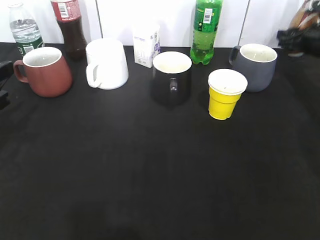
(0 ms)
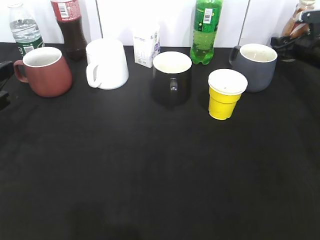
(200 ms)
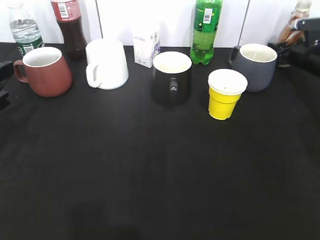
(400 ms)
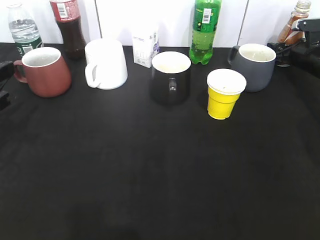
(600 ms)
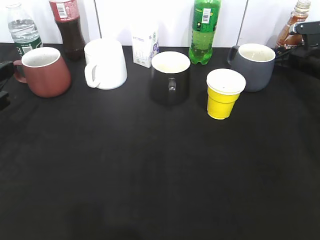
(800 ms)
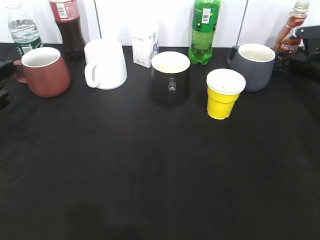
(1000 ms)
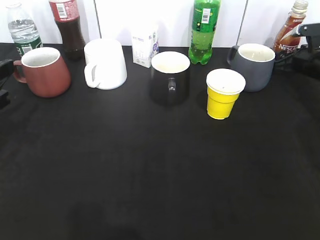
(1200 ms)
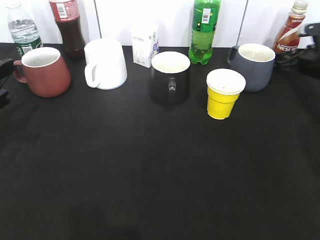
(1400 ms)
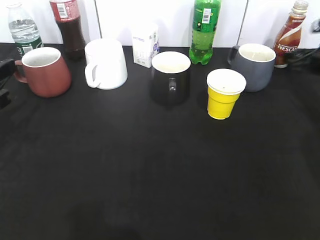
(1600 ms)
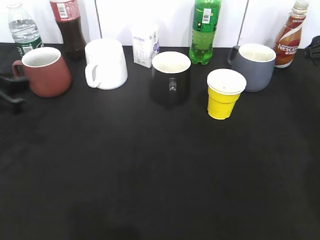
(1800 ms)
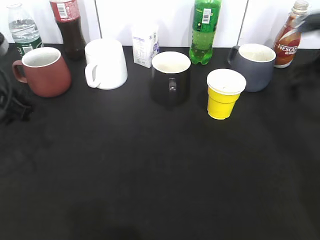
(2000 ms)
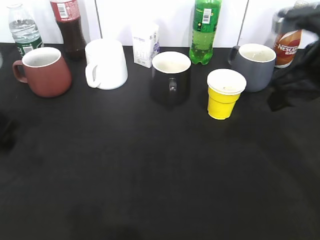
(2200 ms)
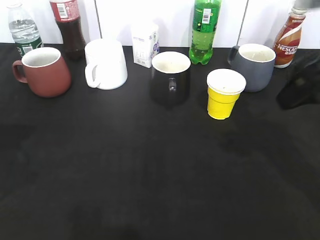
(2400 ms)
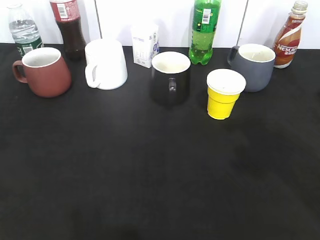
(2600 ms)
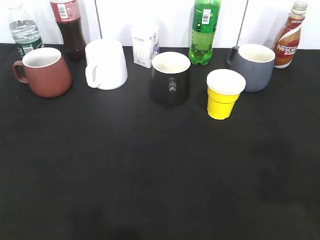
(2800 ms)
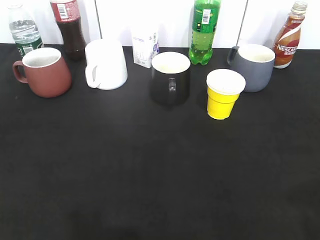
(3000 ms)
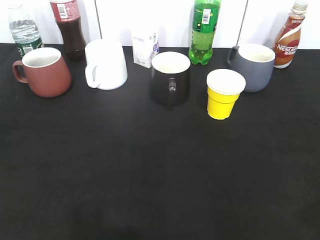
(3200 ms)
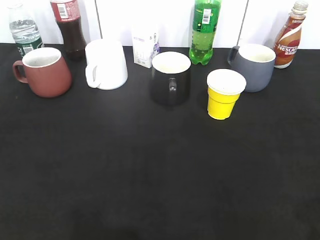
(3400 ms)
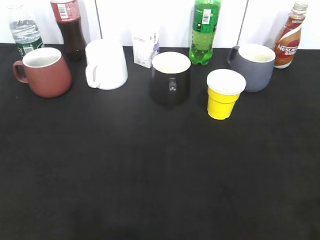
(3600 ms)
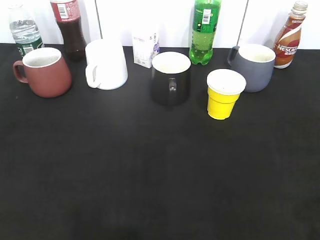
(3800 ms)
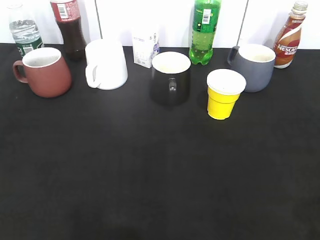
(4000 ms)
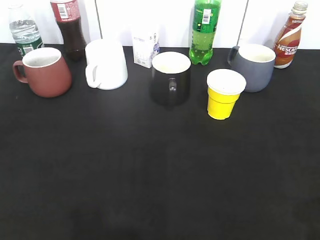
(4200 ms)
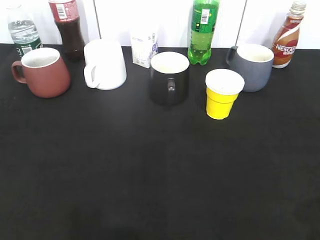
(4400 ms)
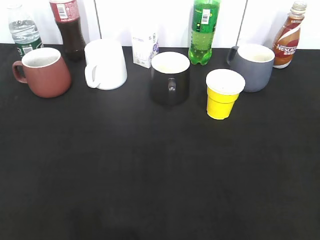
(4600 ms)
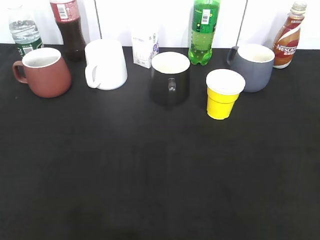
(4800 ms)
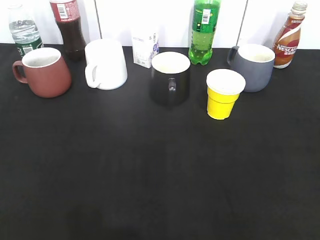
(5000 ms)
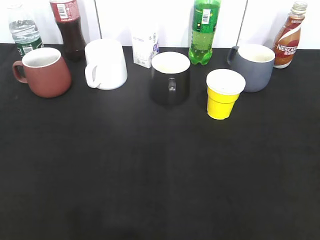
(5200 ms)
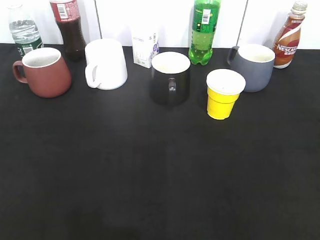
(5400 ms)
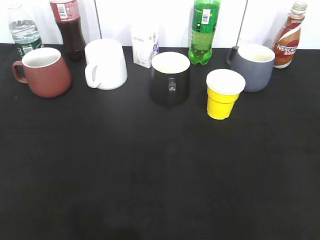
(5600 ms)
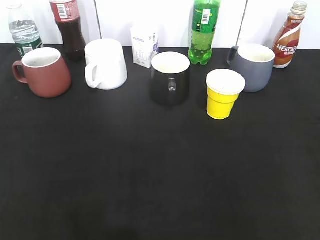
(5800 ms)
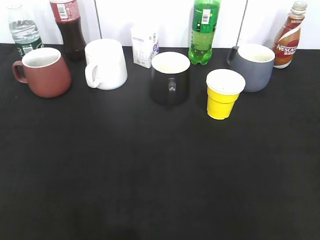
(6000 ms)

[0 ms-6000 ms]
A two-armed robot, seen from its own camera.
0 ms to 1600 ms: The right gripper is displaced backward by about 5 cm, and opens up.
1600 ms to 3000 ms: The left gripper heads backward and upward, covering roughly 20 cm, and opens up; the right gripper is displaced backward and upward by approximately 40 cm.
3000 ms to 4400 ms: The grippers make only small movements.

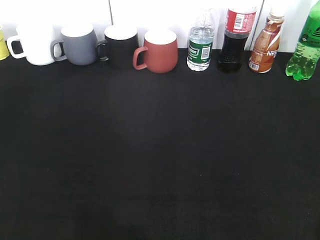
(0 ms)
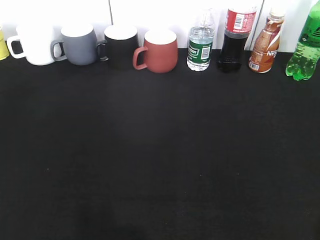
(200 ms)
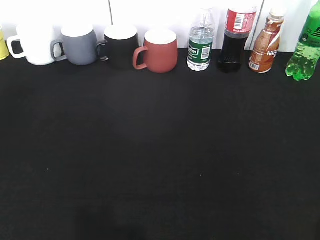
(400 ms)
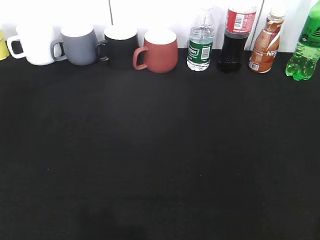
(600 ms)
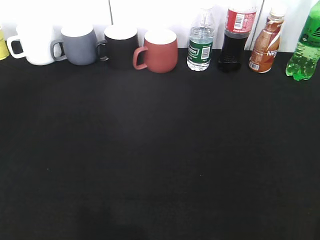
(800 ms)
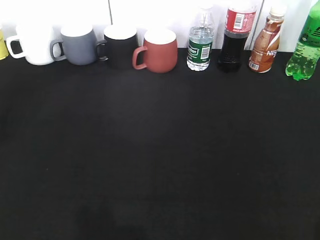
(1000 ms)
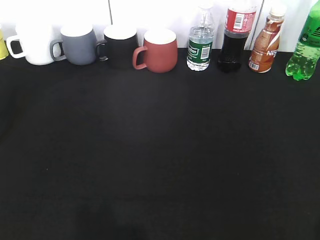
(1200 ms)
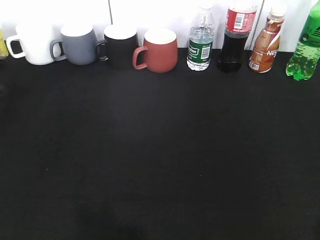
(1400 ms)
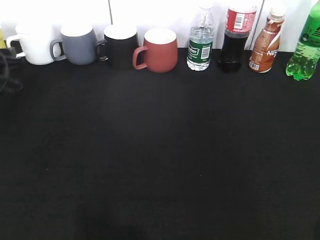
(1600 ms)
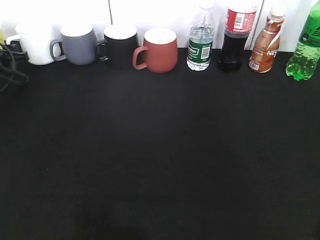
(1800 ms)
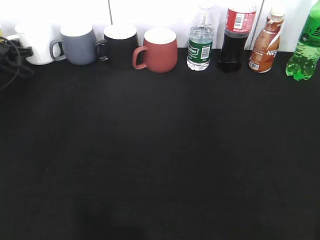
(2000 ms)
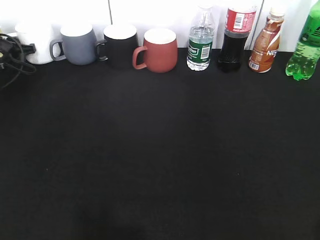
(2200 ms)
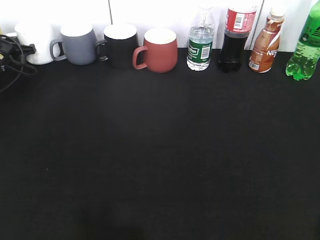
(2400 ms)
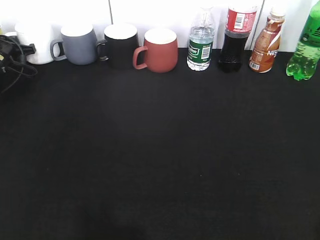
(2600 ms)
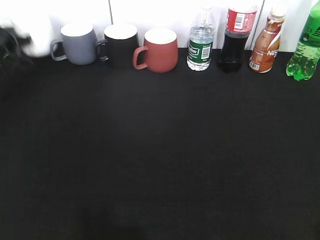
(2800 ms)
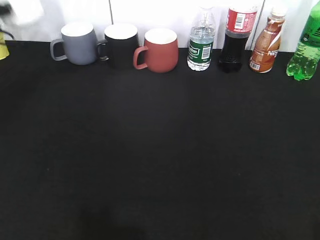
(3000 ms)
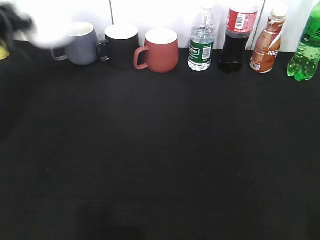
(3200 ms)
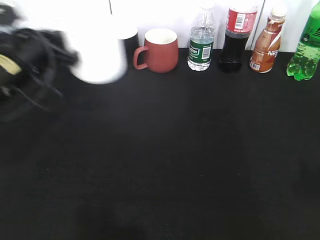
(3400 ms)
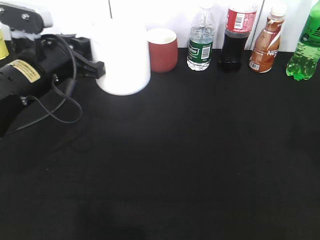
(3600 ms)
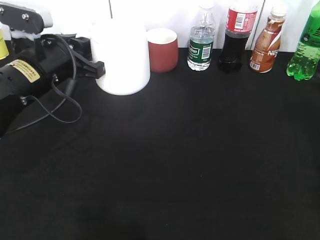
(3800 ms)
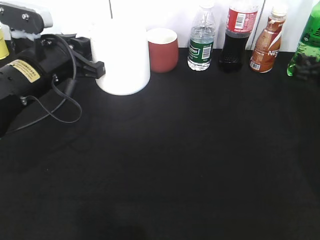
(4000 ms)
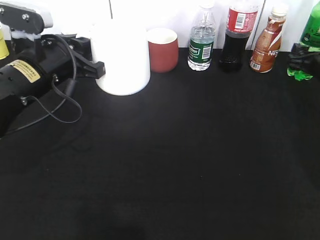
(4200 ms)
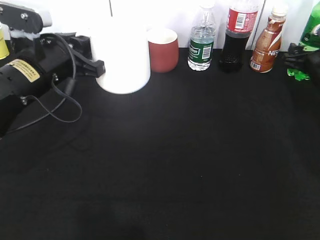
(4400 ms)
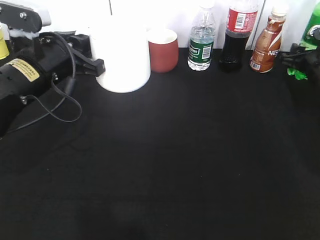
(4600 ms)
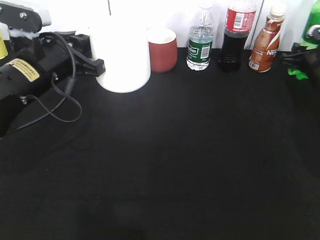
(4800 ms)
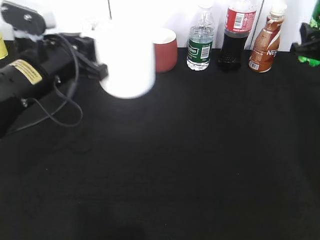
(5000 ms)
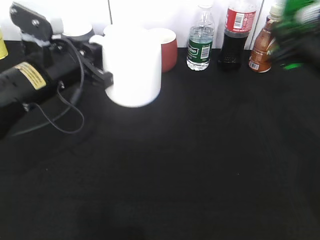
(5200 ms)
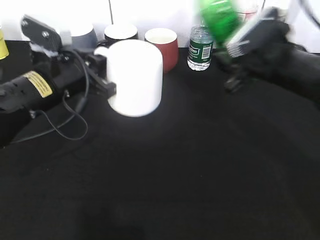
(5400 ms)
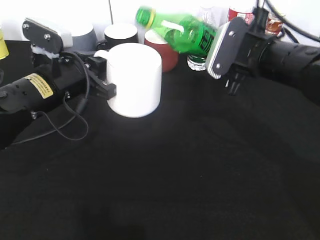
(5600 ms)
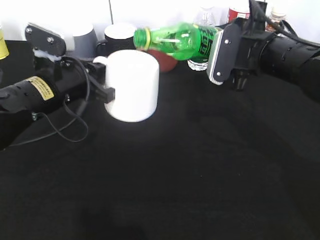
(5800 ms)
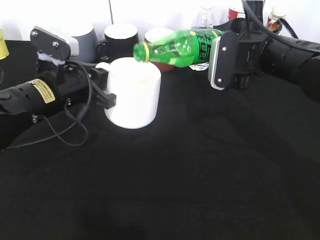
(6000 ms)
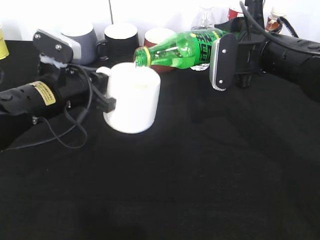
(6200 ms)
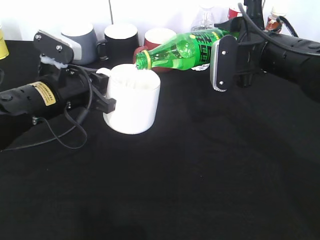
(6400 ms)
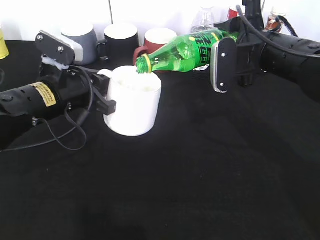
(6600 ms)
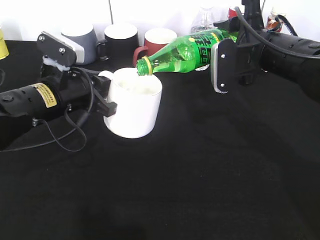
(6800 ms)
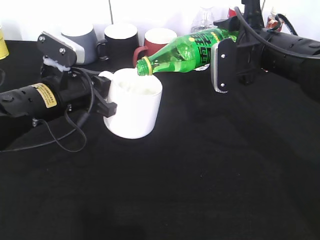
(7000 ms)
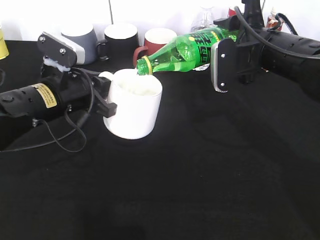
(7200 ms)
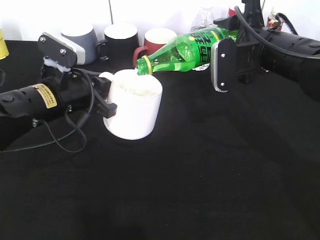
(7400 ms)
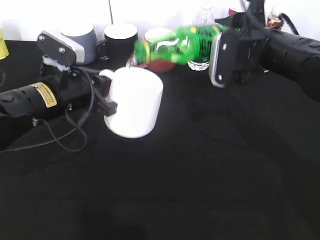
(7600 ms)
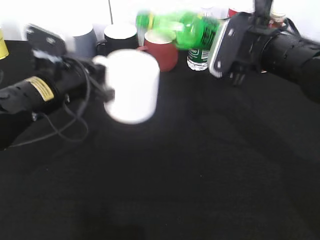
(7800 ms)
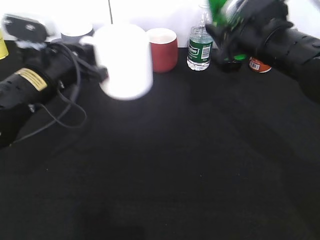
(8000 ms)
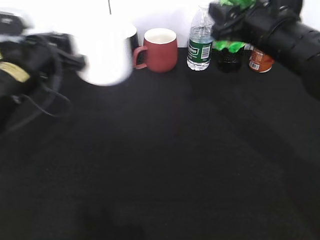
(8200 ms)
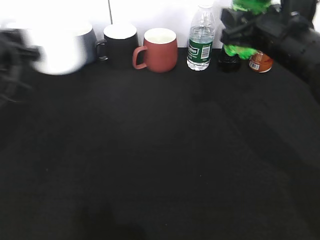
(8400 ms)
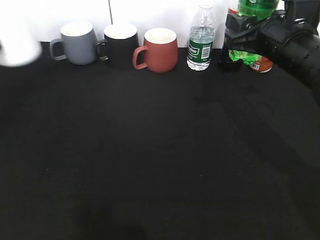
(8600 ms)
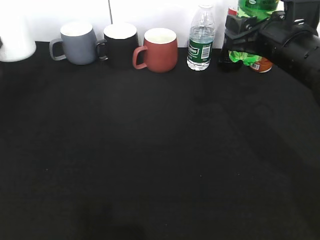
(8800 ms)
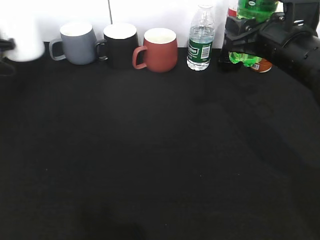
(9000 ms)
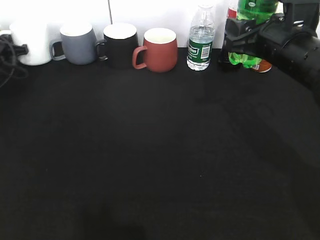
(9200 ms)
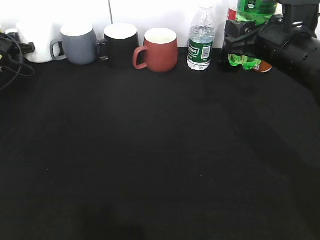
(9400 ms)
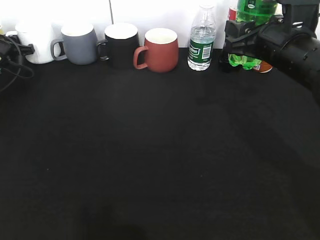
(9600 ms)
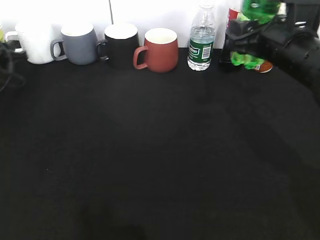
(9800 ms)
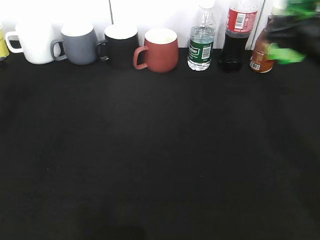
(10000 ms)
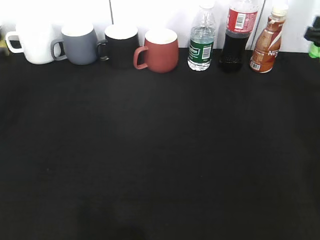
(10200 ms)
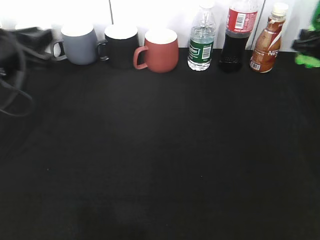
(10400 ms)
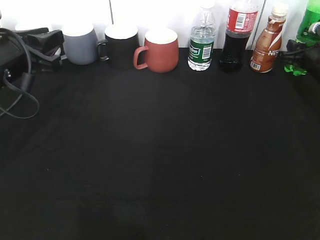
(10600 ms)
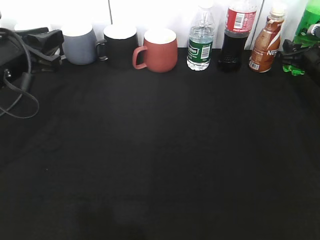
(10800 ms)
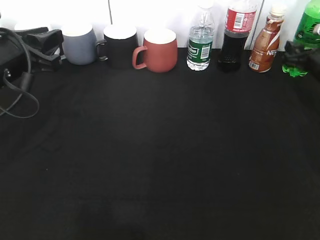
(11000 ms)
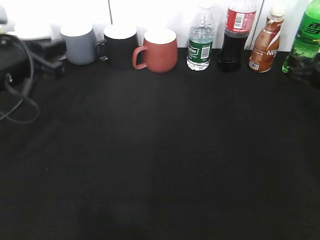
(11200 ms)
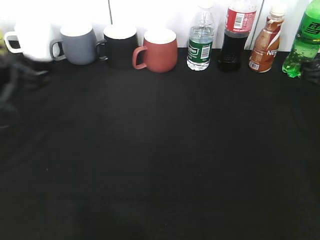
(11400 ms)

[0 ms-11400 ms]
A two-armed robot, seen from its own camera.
Step, 2800 ms to 3600 ms: Lift the white cup with left gripper.
Step, 3800 ms to 4600 ms: Grasp the bottle with sprite with right gripper.
Step, 4800 ms to 7600 ms: Pour the sprite from bottle to cup with right gripper.
Step, 7800 ms to 11000 ms: Place the sprite bottle on the table with right gripper.
0 ms to 1400 ms: The left gripper goes roughly 35 cm forward.
1400 ms to 2800 ms: The left gripper heads forward, covering some 15 cm, and closes its fingers.
2800 ms to 4200 ms: The left gripper is displaced backward and to the right by about 30 cm, while the right gripper shifts some 40 cm forward.
4200 ms to 5600 ms: The right gripper heads to the left, upward and backward, covering about 20 cm, and closes.
7200 ms to 8600 ms: The left gripper is displaced to the left by about 20 cm.
8600 ms to 10000 ms: The right gripper goes some 5 cm to the right; the left gripper reaches some 15 cm forward, then returns.
10000 ms to 11400 ms: The right gripper shifts roughly 10 cm to the right and downward, moves roughly 10 cm forward and comes back, and opens its fingers. The left gripper is displaced to the right, backward and upward by approximately 15 cm.

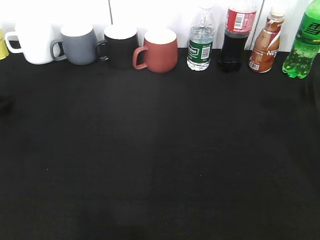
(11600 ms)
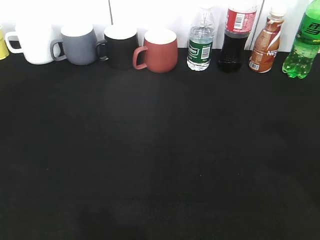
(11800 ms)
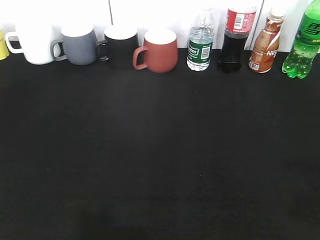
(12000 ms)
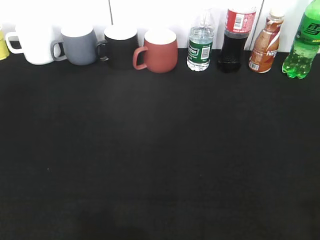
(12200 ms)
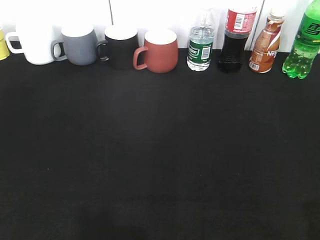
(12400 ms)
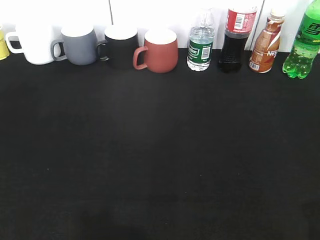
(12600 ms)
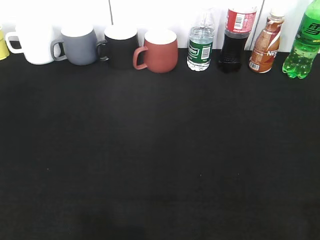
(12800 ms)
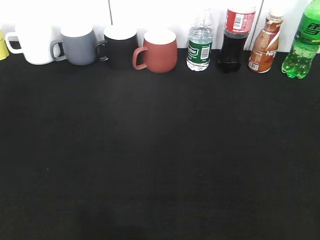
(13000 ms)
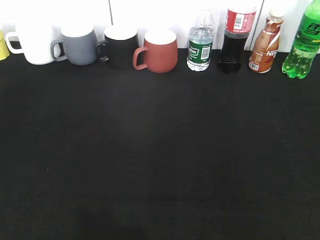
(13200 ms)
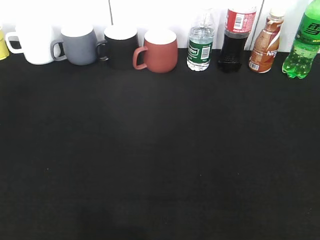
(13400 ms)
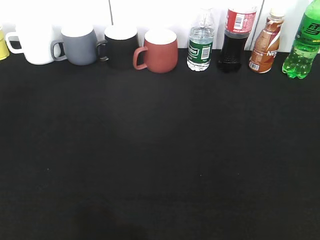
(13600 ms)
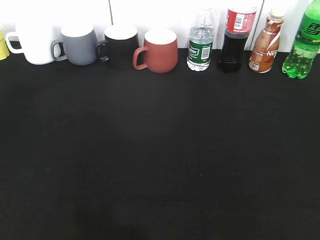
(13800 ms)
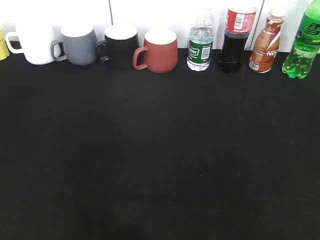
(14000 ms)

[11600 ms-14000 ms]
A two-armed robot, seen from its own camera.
11600 ms to 12800 ms: The grippers both shift backward by approximately 20 cm.

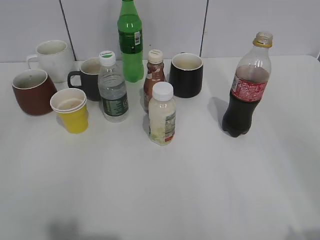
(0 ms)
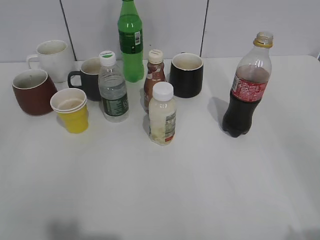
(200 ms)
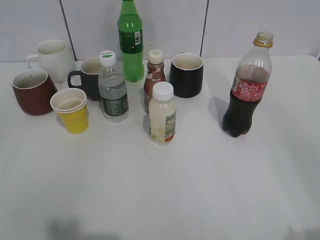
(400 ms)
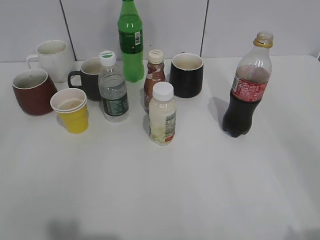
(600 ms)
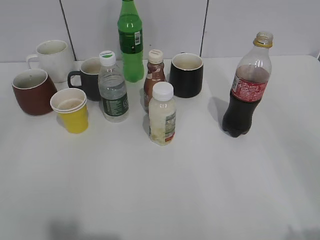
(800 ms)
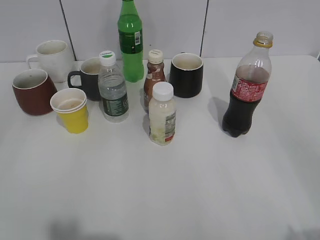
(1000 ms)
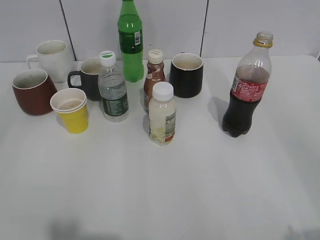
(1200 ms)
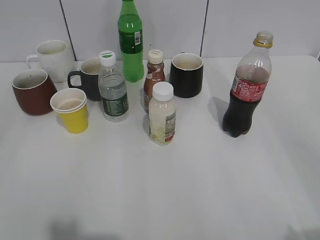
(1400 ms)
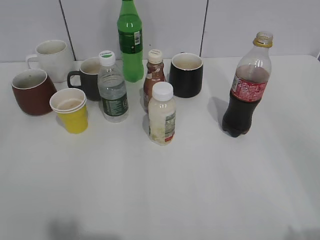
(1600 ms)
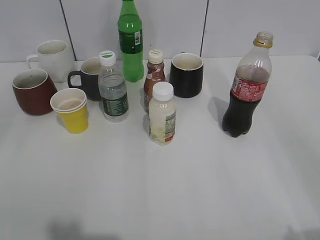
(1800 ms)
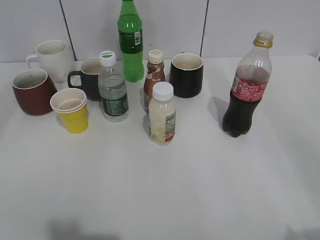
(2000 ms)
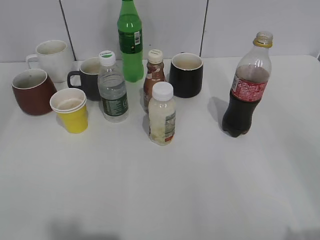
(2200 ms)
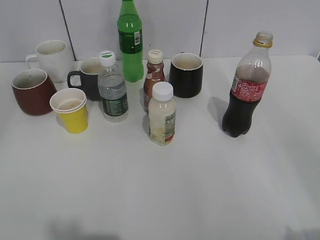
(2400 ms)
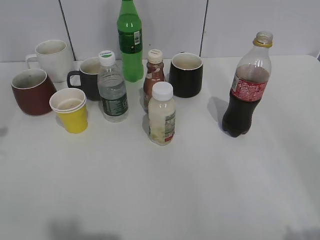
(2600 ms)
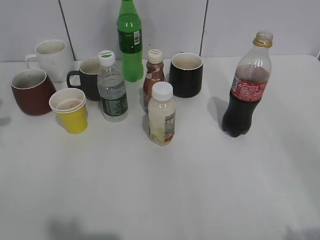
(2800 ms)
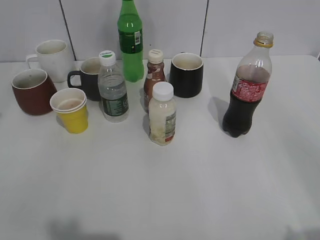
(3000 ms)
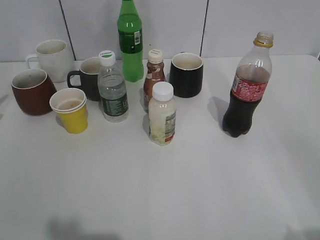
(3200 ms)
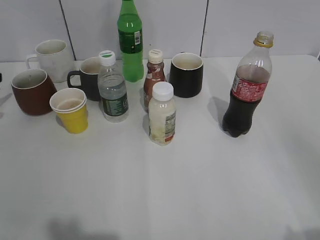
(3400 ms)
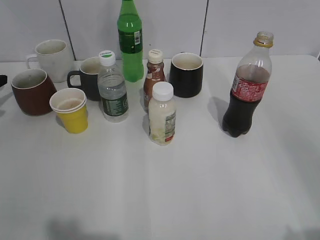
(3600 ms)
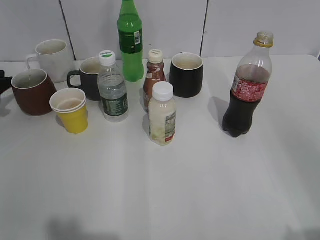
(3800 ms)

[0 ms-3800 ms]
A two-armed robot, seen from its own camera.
2600 ms to 3800 ms: The left gripper moves forward, downward and to the left, some 25 cm, and opens its fingers.
